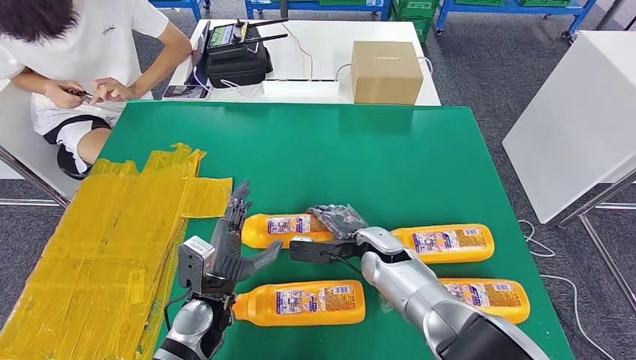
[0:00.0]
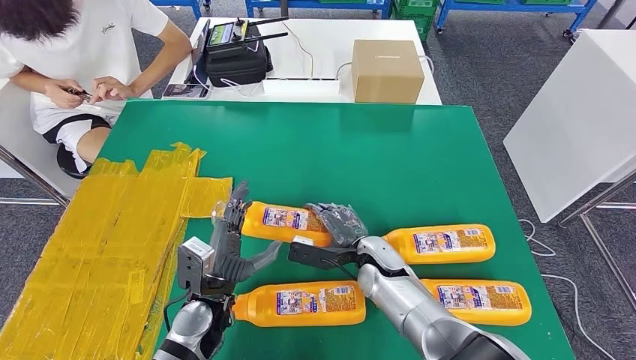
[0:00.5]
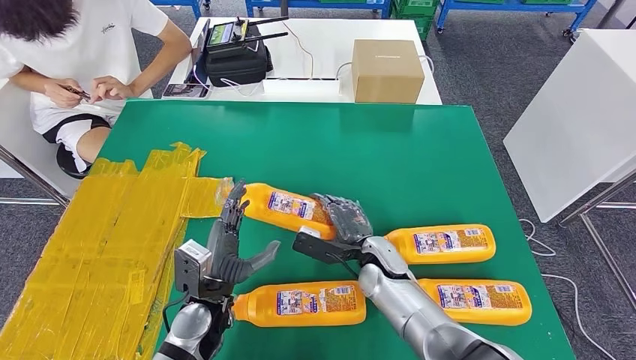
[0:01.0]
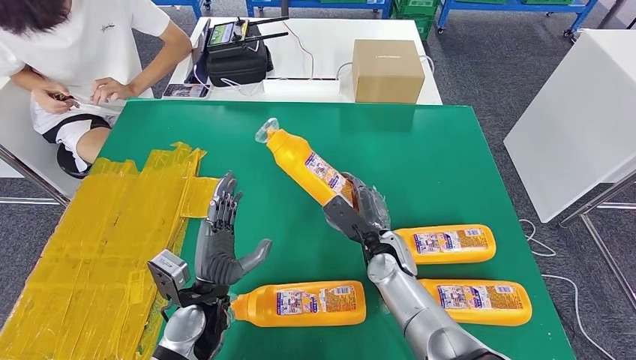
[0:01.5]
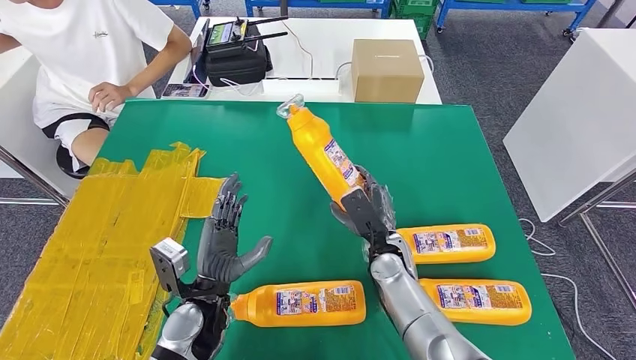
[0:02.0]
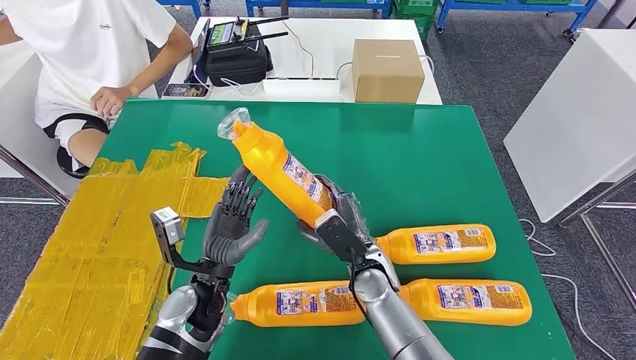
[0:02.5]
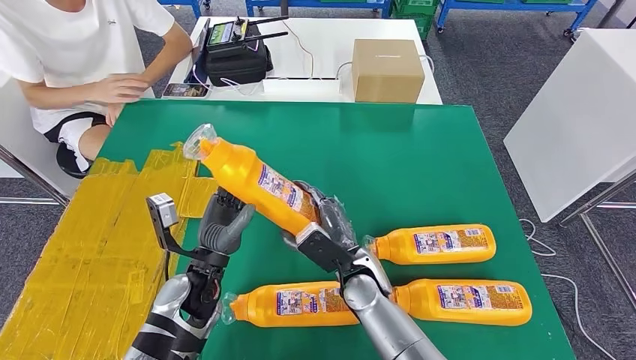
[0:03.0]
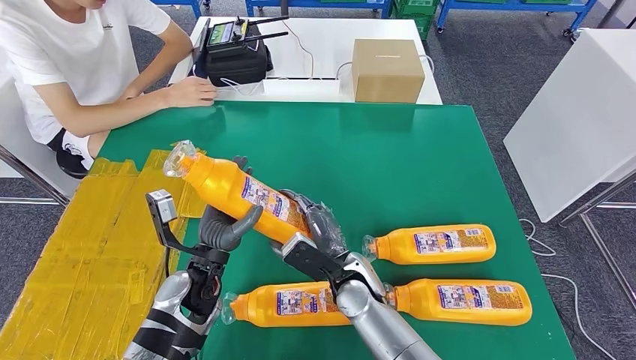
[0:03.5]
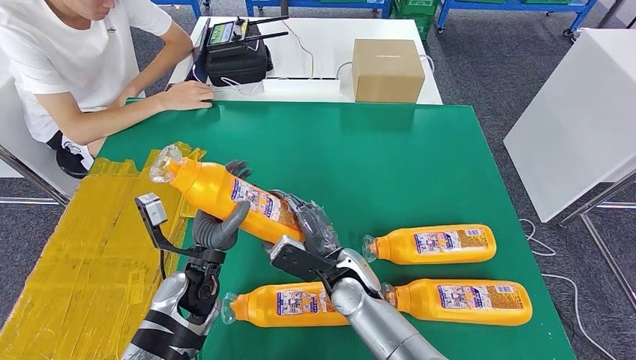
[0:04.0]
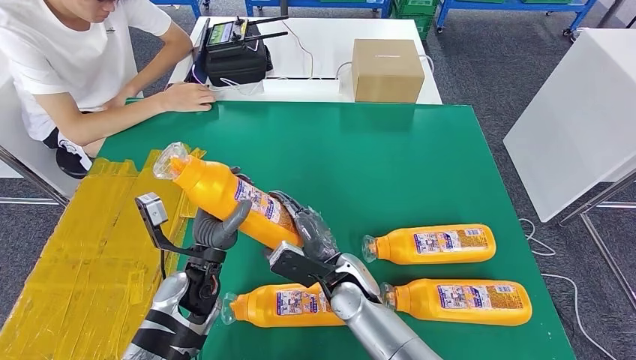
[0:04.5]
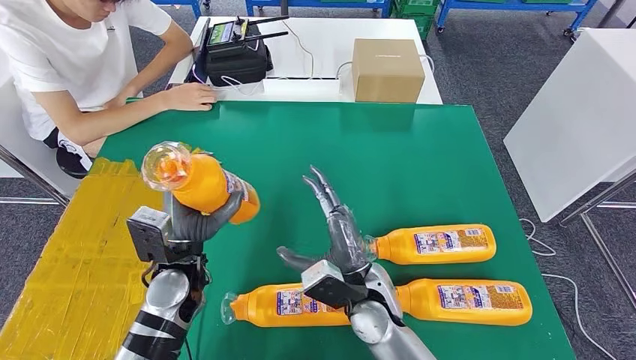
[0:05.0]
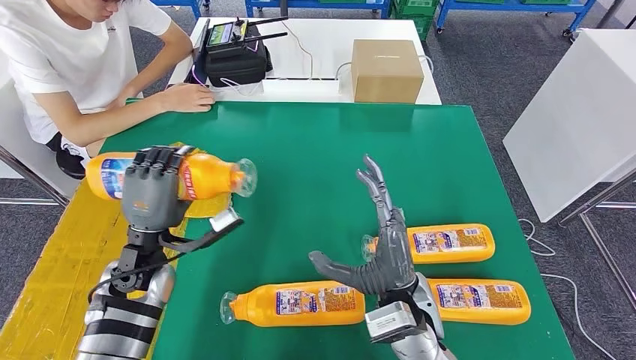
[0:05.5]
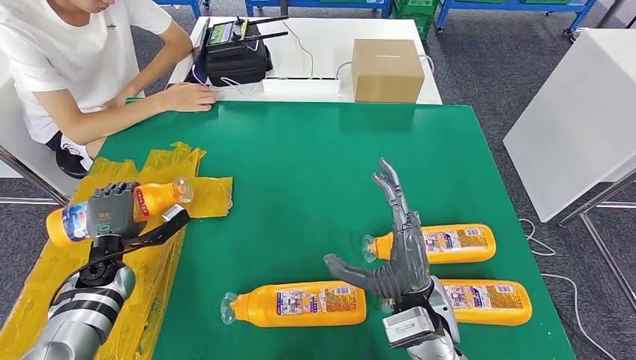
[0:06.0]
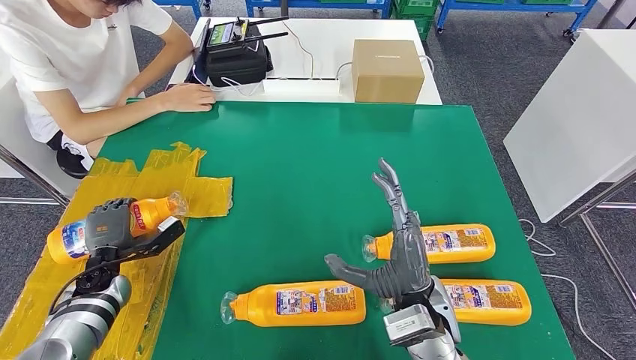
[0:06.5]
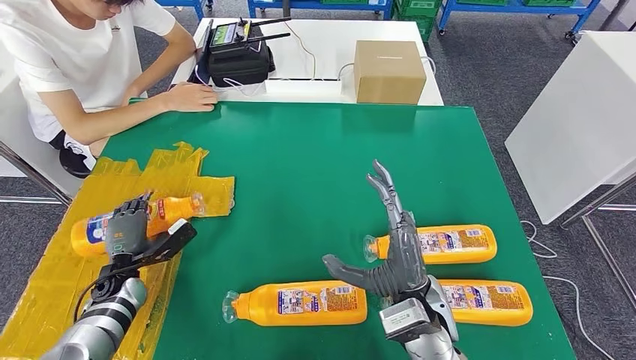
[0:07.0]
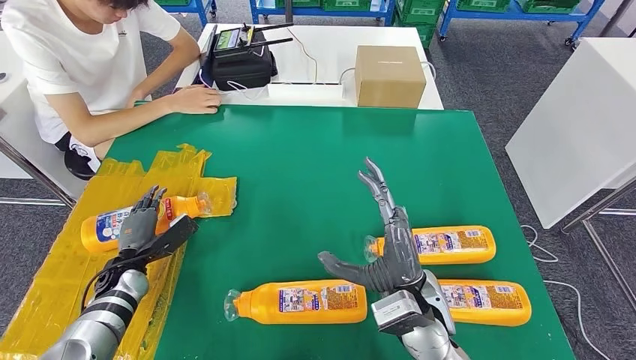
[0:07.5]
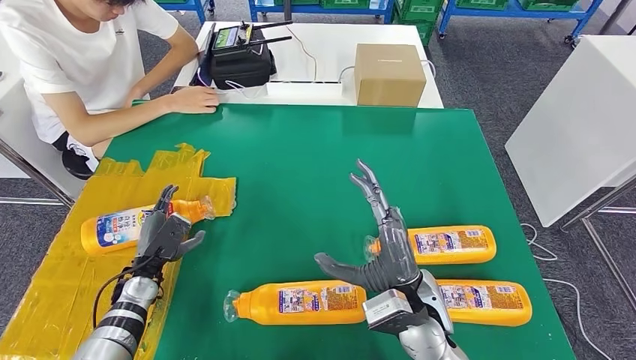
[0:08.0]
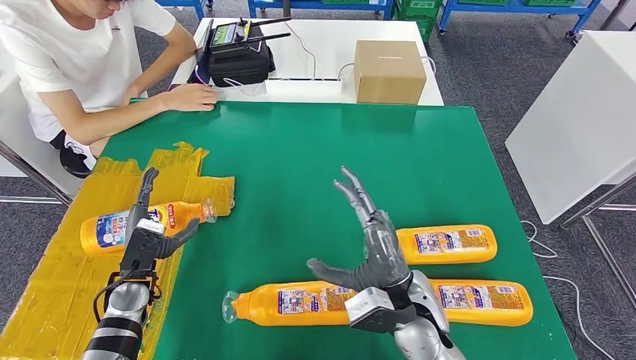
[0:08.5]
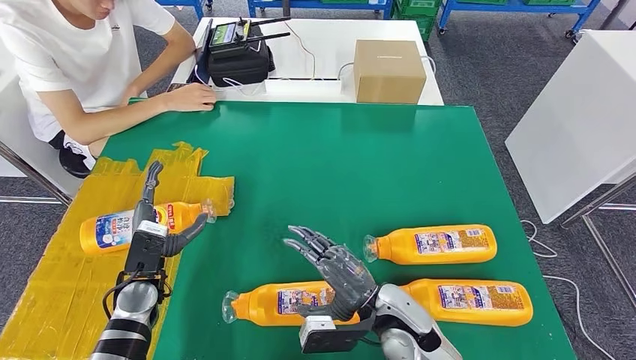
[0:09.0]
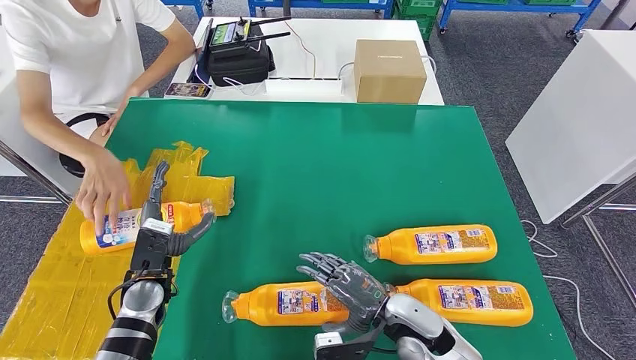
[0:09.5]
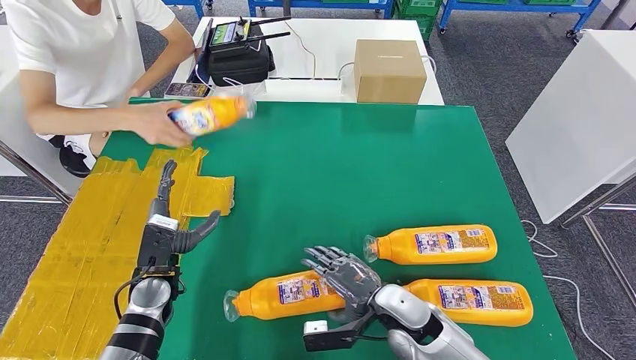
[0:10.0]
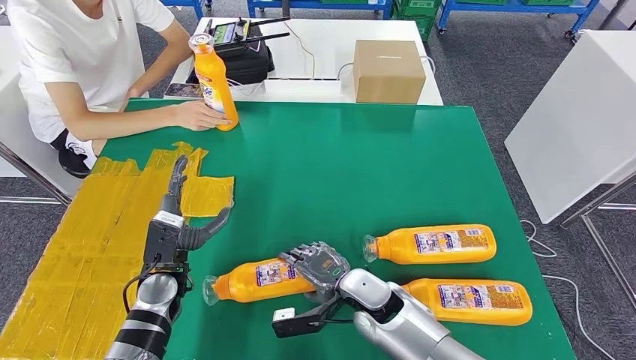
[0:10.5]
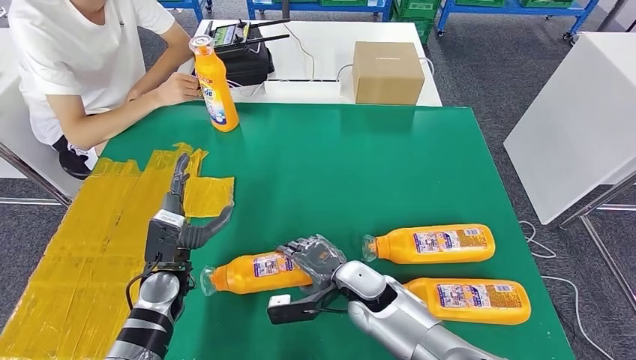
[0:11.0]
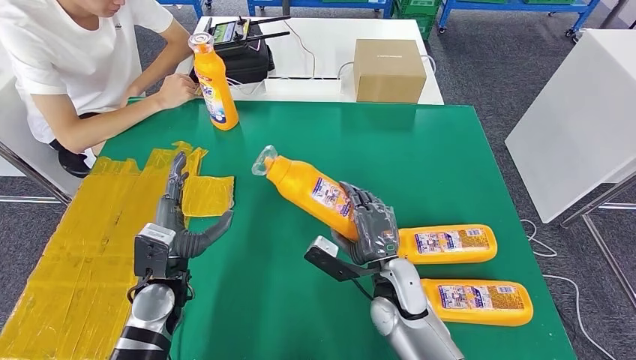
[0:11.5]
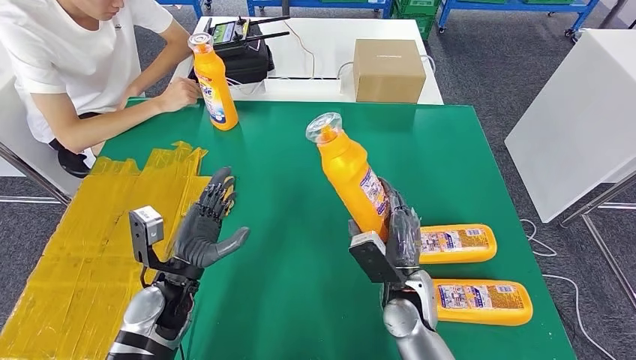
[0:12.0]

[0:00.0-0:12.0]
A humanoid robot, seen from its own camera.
Step, 0:02.0 to 0:06.5: Flip the fast-moving consumer goods bottle to the front side.
0:04.0 to 0:06.0: The left hand goes approximately 20 cm to the left, while the right hand is displaced to the right, upward and backward by approximately 15 cm.

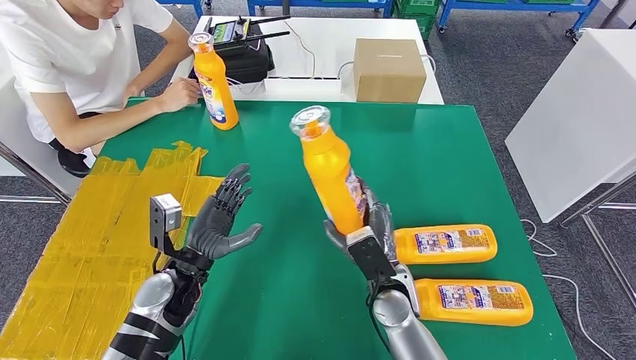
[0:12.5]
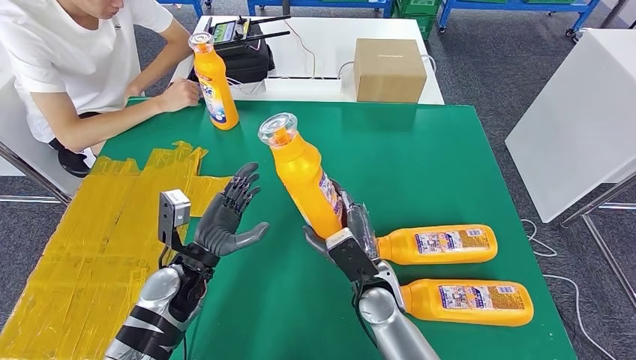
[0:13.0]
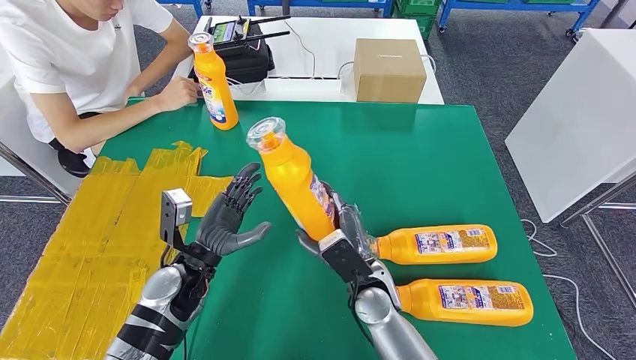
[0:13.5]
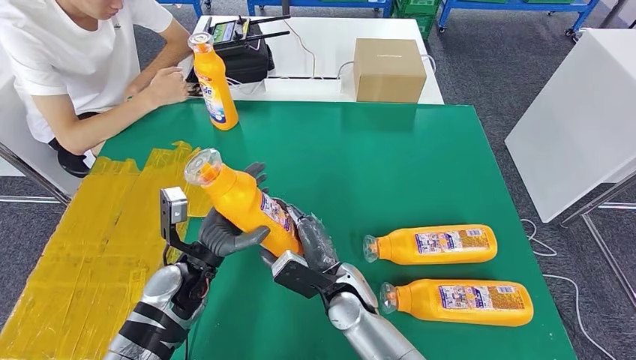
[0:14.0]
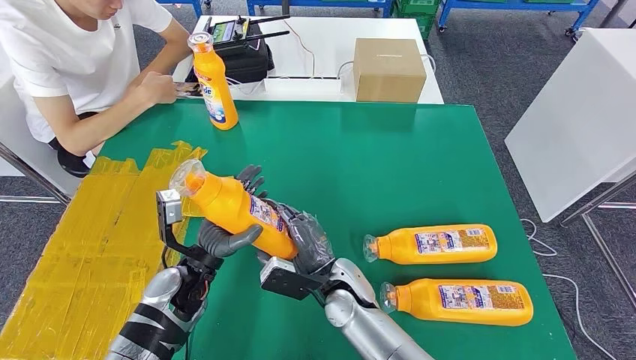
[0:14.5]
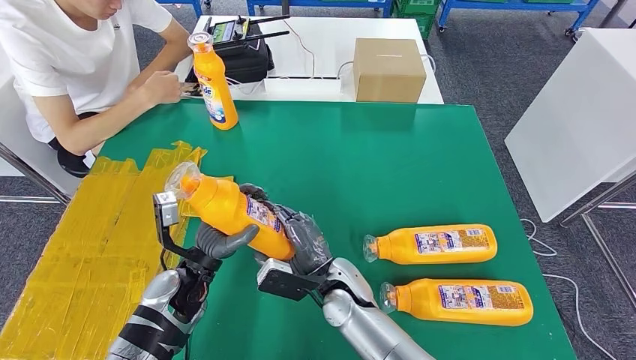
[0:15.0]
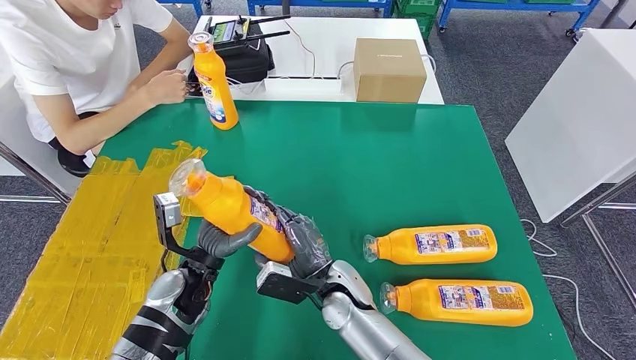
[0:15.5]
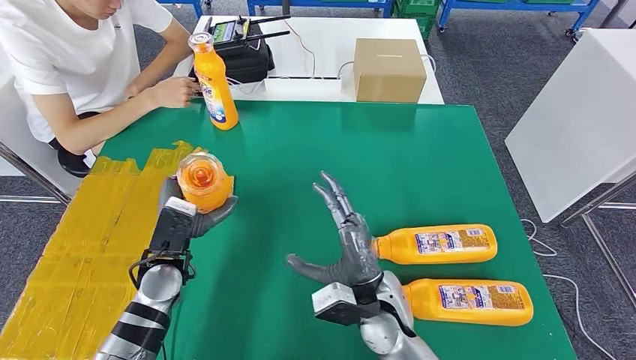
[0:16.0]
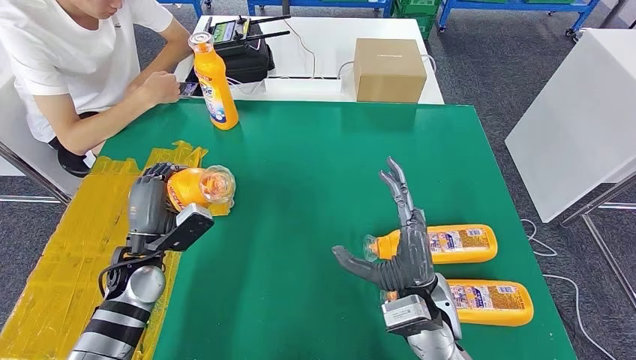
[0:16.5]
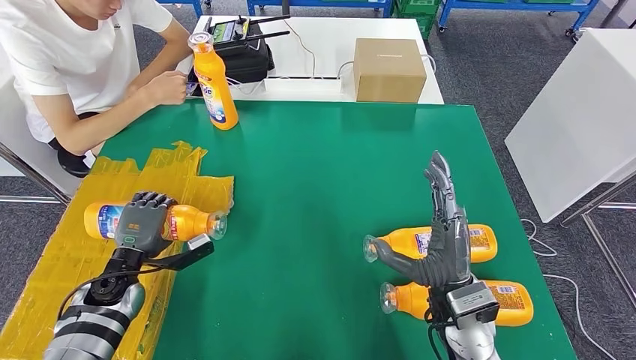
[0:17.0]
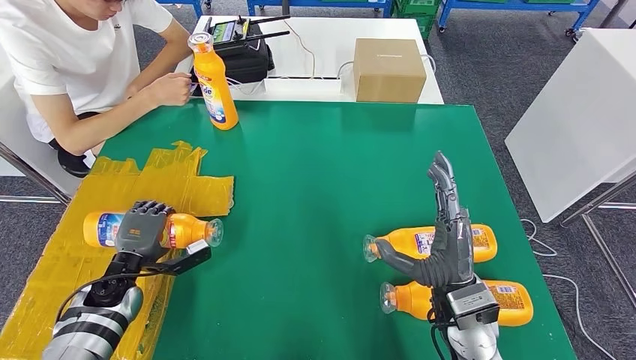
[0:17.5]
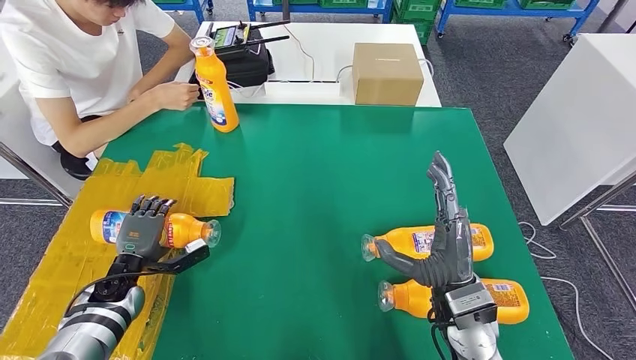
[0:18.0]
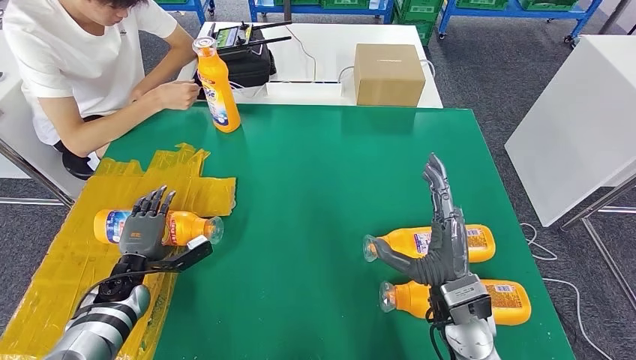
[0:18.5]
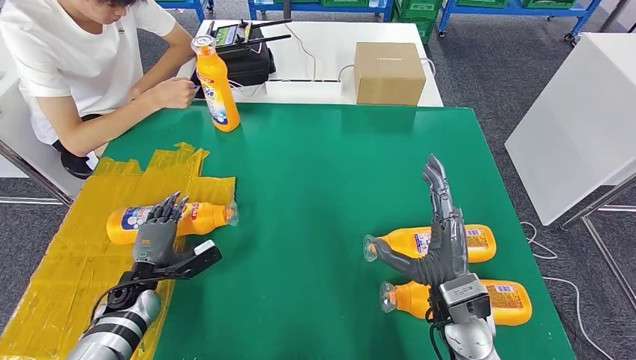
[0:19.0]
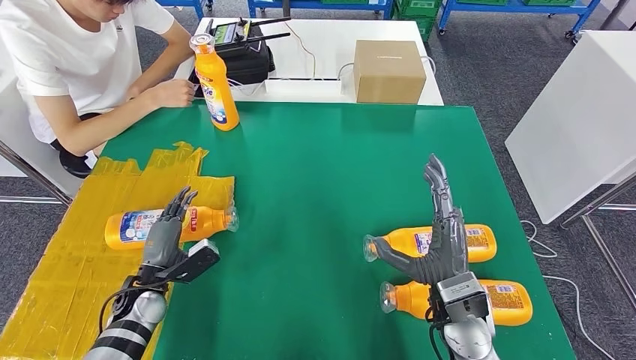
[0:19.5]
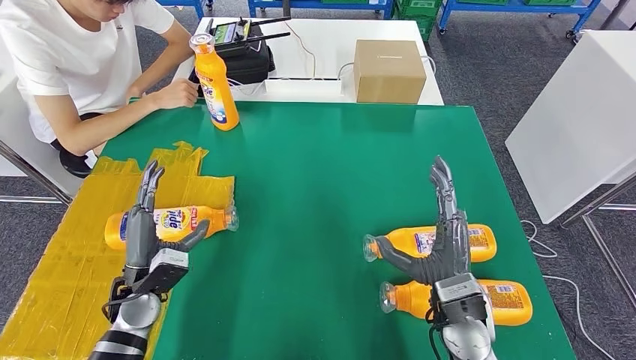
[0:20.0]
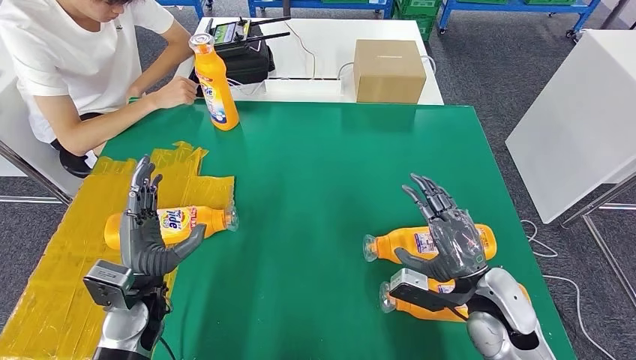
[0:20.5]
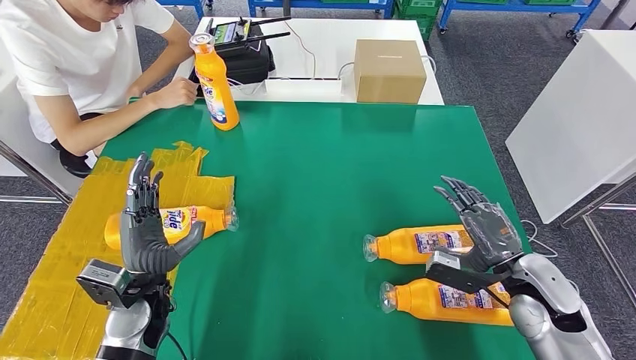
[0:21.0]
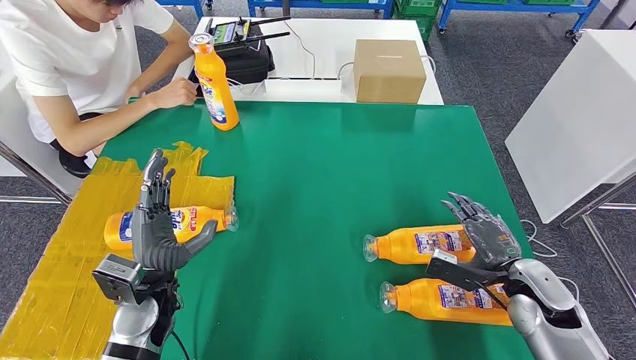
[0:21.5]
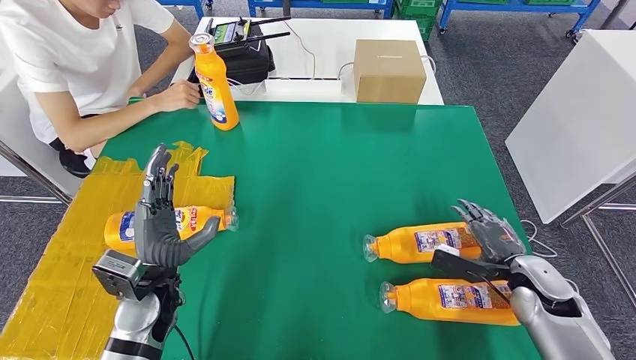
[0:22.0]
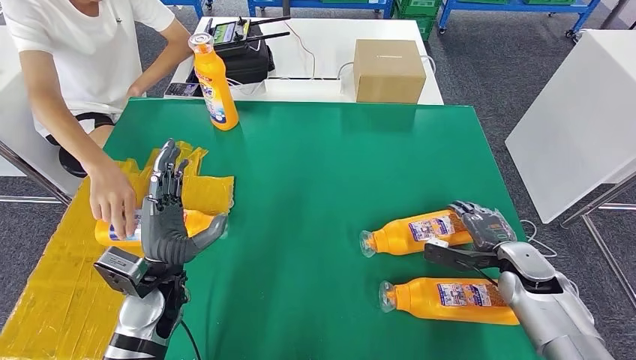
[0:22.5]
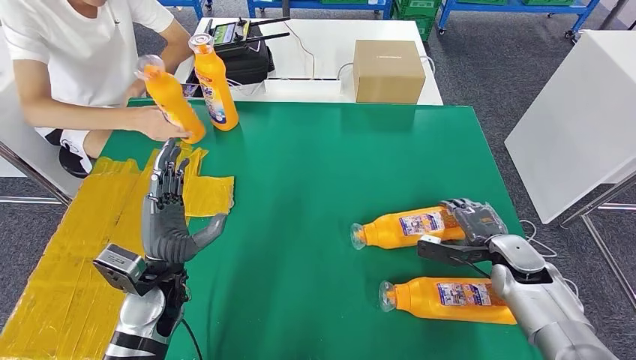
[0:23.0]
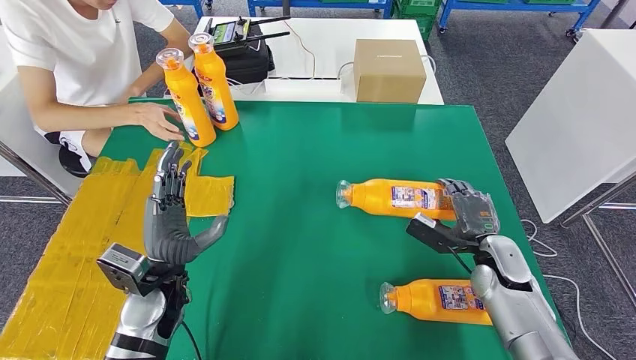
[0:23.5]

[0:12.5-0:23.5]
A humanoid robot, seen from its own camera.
Step, 0:13.0 to 0:18.5: Flip the fast-moving consumer goods bottle to the front side.
0:12.5 to 0:14.5: The right hand shifts roughly 10 cm to the left.
0:14.5 to 0:16.0: The right hand shifts about 5 cm to the right.
0:18.0 to 0:20.0: The left hand moves to the right and upward, approximately 10 cm.
0:20.0 to 0:21.5: The right hand goes about 15 cm to the right, while the left hand changes place by about 5 cm.
0:21.5 to 0:23.5: The right hand is displaced forward by some 5 cm.
